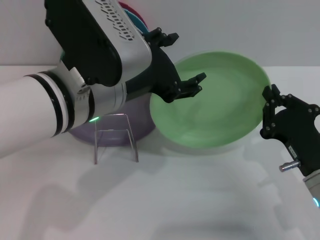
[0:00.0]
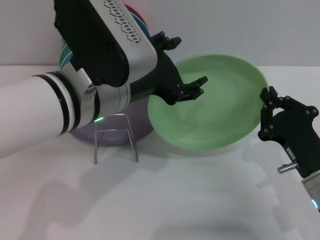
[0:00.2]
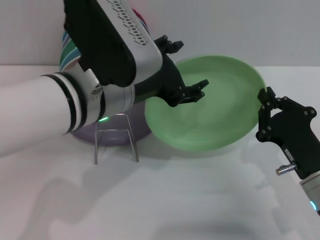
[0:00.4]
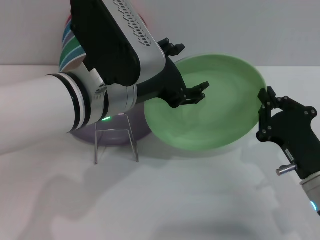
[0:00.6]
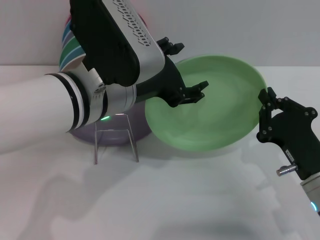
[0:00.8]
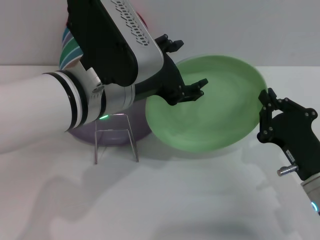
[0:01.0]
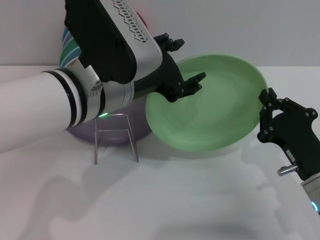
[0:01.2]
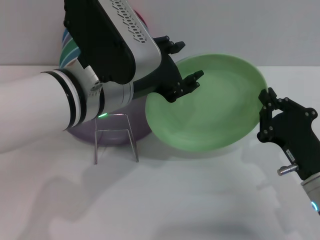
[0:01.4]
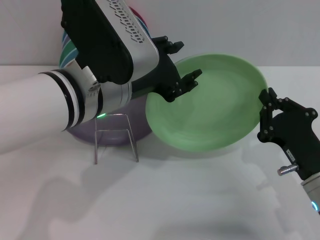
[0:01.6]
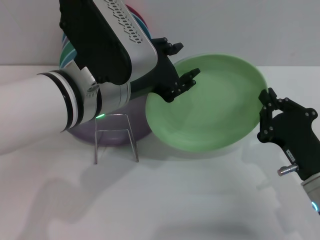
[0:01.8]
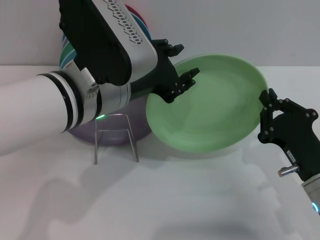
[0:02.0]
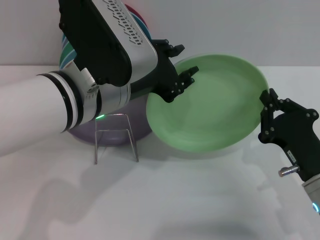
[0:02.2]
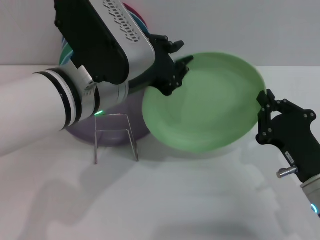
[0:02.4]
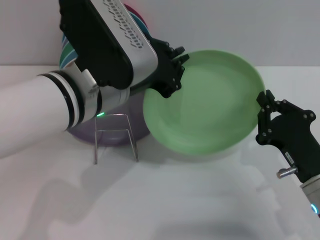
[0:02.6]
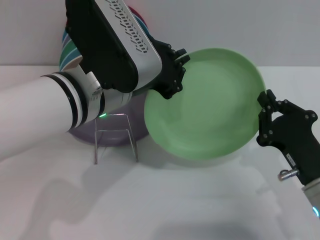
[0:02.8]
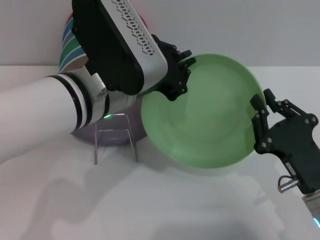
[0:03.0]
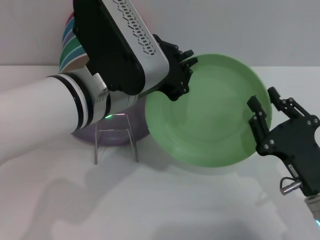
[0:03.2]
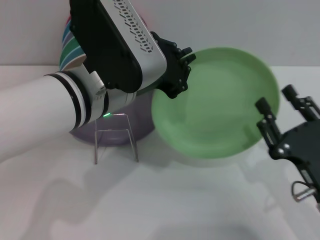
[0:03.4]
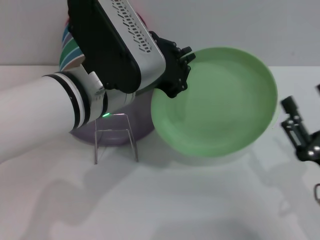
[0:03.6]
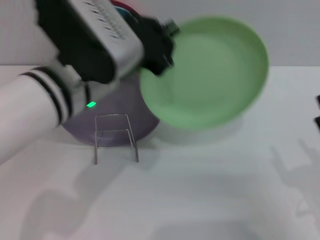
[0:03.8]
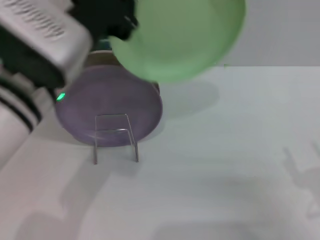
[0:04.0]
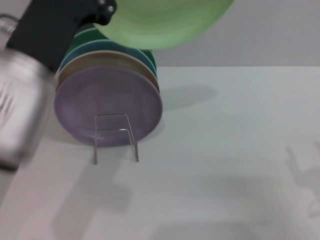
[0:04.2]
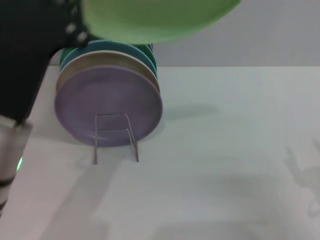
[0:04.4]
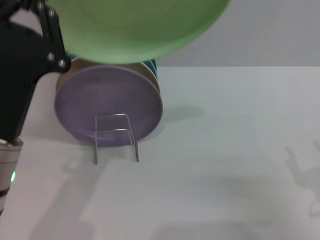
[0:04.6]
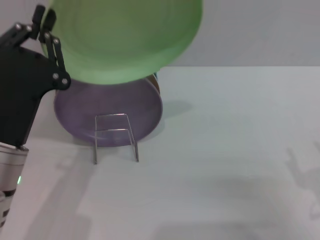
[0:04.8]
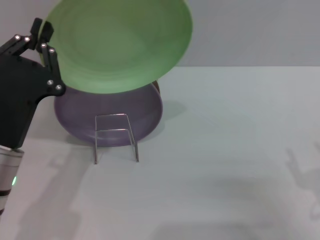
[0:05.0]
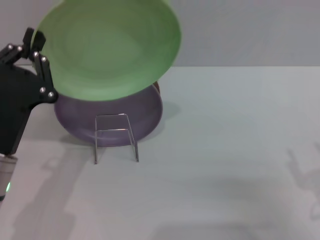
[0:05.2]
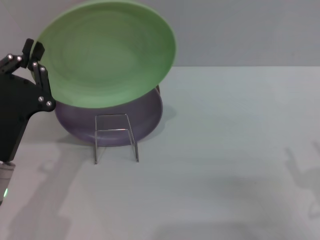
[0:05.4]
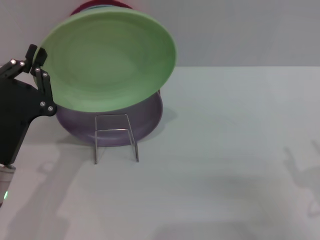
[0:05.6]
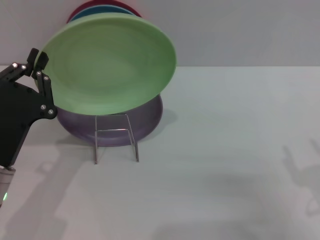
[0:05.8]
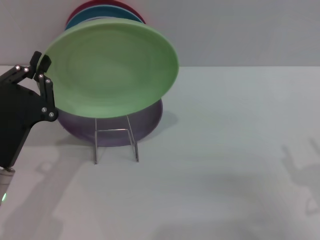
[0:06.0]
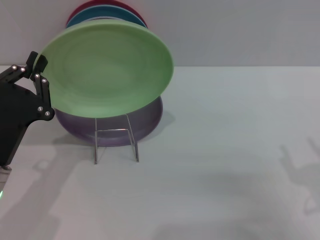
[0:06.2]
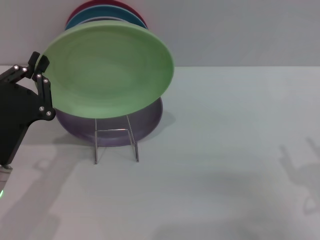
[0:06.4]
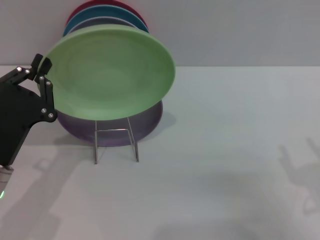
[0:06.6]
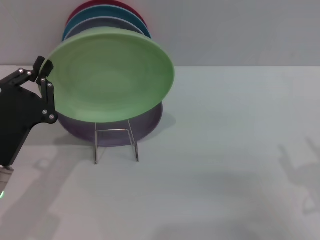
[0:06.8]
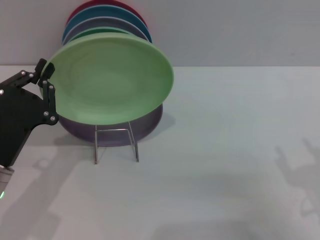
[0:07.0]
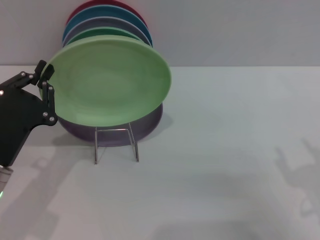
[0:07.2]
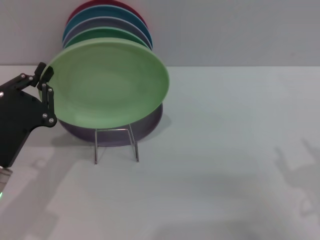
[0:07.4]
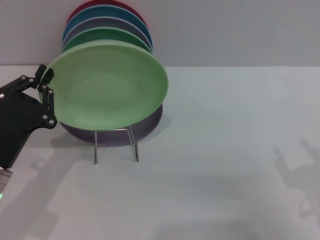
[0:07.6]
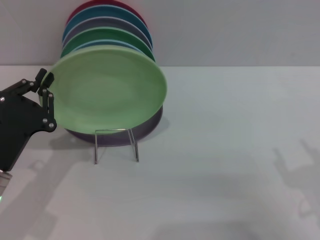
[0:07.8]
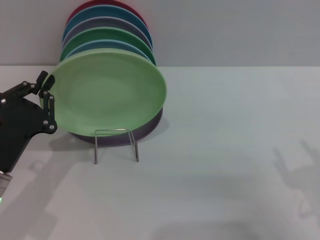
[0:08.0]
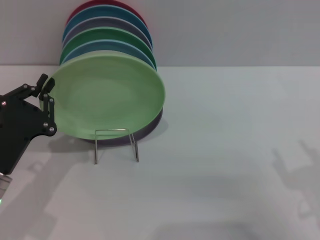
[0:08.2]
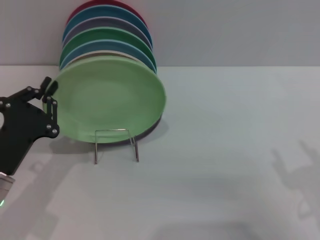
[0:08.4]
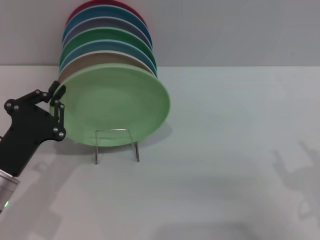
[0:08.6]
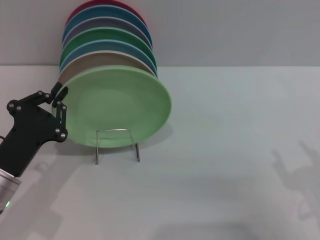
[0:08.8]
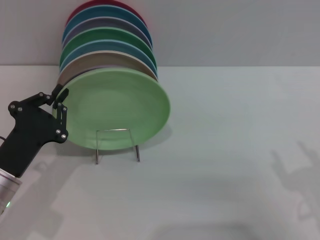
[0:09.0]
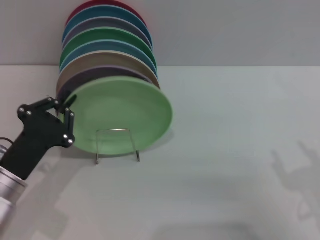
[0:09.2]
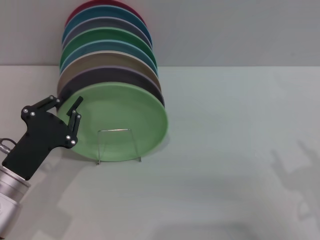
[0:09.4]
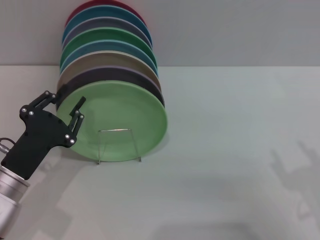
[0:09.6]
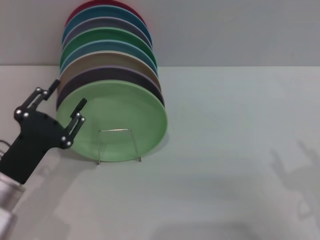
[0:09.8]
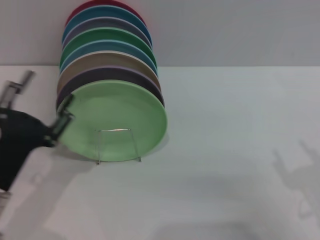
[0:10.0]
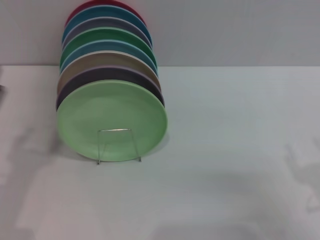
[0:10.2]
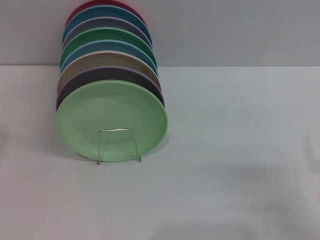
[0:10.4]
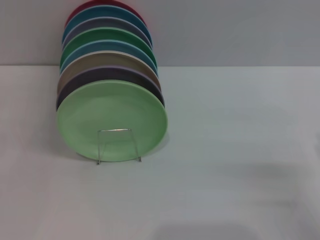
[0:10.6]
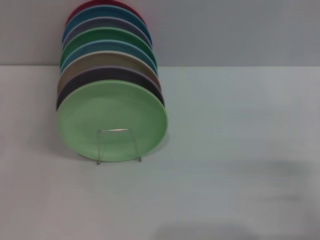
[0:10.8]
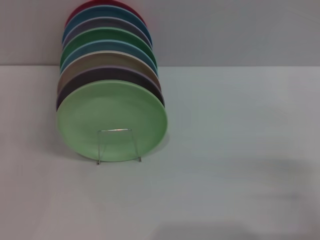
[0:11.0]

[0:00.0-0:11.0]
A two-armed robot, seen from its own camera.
Task of the whole recording: Grip the plate with one hand, pass it to the other, then set it on the shelf.
Step, 0:00.0 to 0:03.8: Pass the plate from the right gripper to the left gripper.
Step, 0:04.0 to 0:09.8: Place the plate on the shelf with the left gripper.
0:00.0 to 0:01.6: There are only small adjustments of the grippers.
0:01.6 to 0:03.2: The left gripper closes.
0:03.2 to 0:04.8: The right gripper shifts approximately 5 cm to the right, and opens; the left gripper moves to the left, downward and backward, some 15 cm.
0:04.8 to 0:06.2: The left gripper goes about 5 cm downward.
0:06.2 to 0:09.4: The grippers stay close to where they were, moving slightly.
0:09.4 to 0:11.0: The right gripper moves roughly 5 cm. The left gripper heads to the left, covering roughly 10 cm, and opens up.
